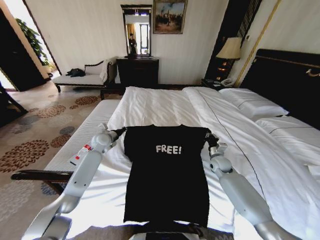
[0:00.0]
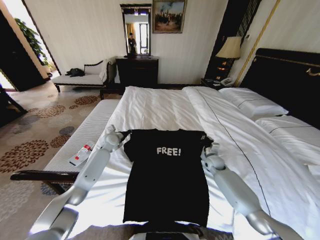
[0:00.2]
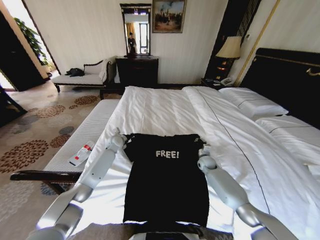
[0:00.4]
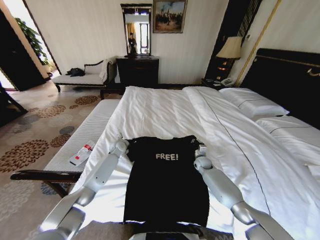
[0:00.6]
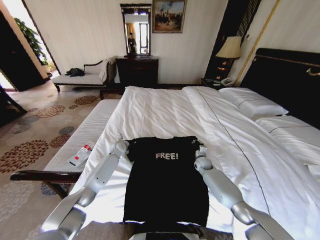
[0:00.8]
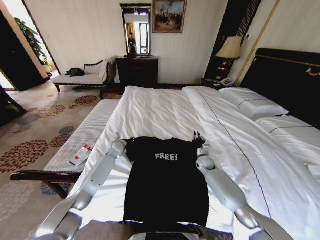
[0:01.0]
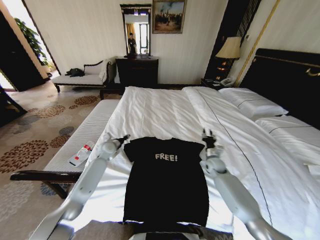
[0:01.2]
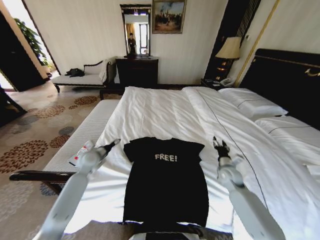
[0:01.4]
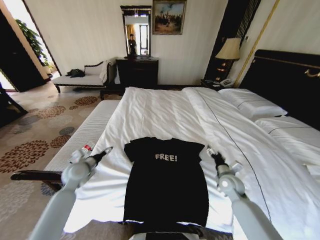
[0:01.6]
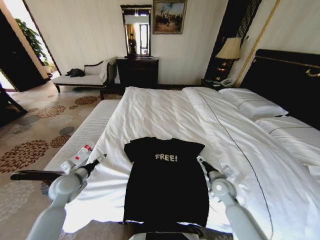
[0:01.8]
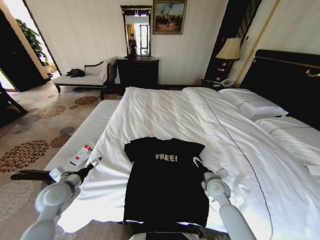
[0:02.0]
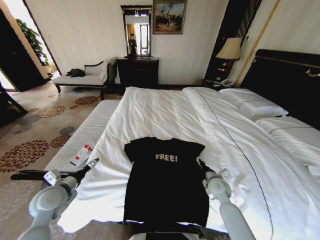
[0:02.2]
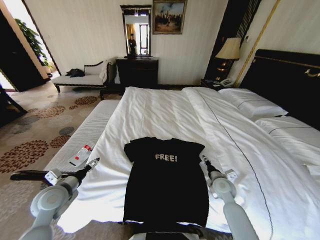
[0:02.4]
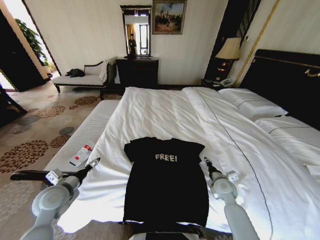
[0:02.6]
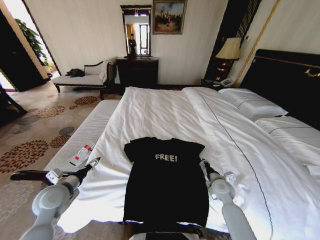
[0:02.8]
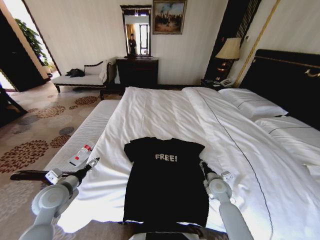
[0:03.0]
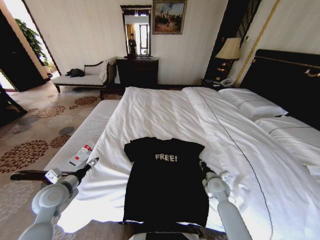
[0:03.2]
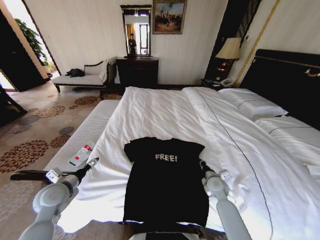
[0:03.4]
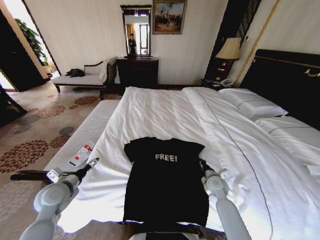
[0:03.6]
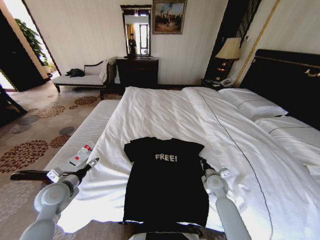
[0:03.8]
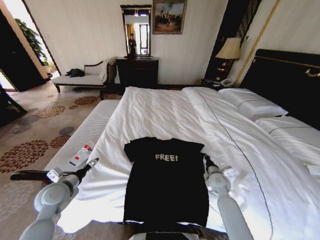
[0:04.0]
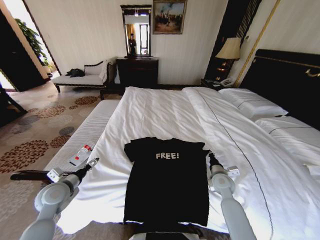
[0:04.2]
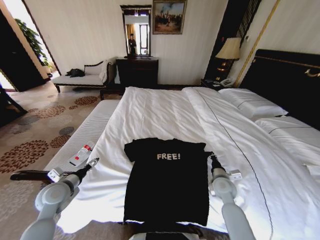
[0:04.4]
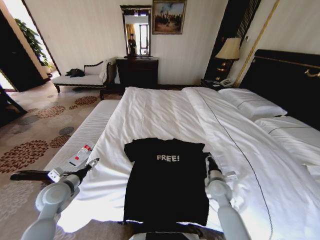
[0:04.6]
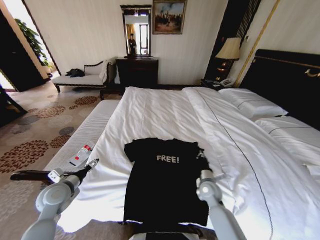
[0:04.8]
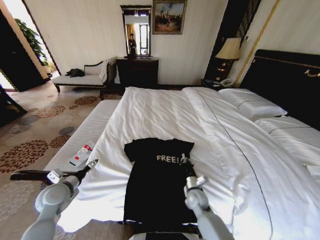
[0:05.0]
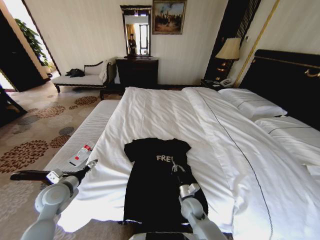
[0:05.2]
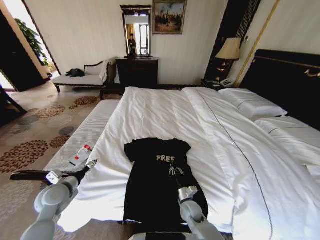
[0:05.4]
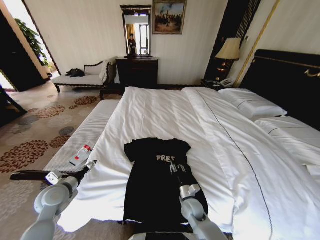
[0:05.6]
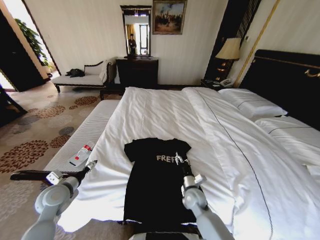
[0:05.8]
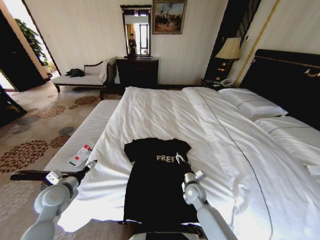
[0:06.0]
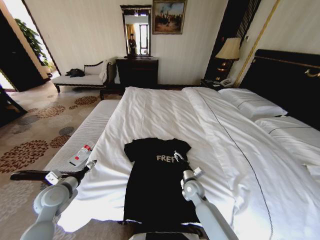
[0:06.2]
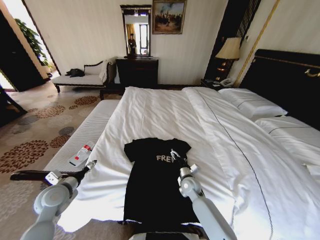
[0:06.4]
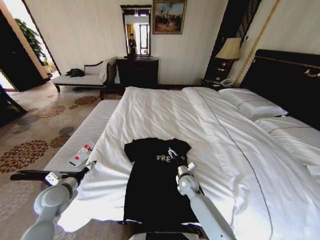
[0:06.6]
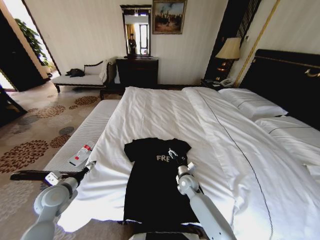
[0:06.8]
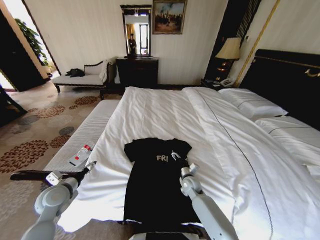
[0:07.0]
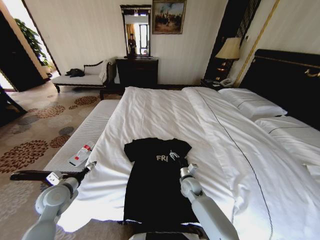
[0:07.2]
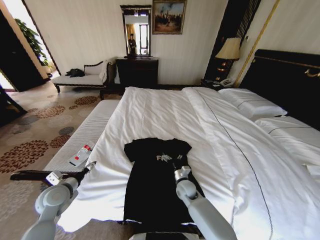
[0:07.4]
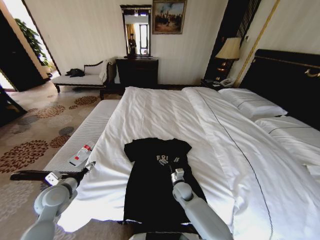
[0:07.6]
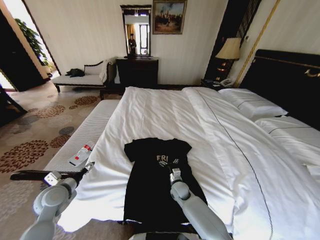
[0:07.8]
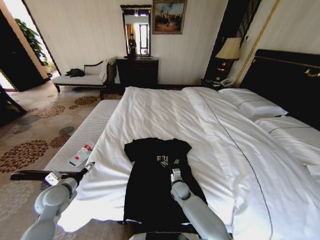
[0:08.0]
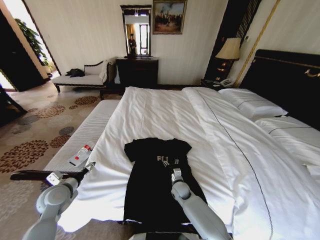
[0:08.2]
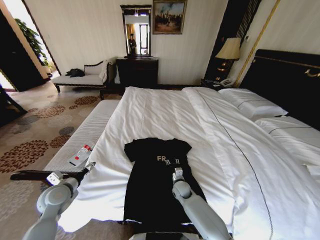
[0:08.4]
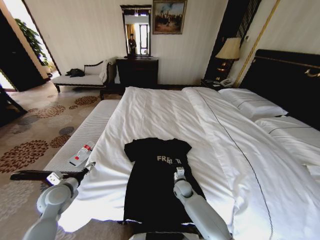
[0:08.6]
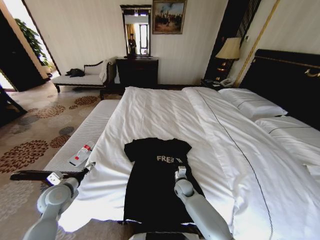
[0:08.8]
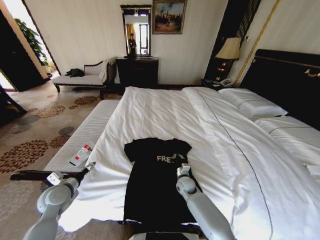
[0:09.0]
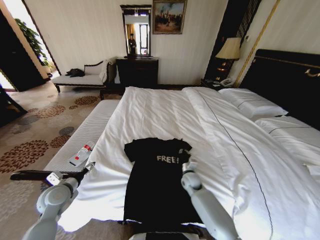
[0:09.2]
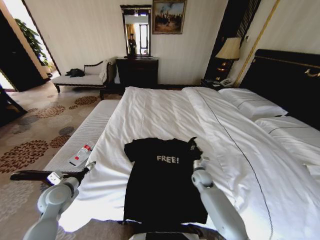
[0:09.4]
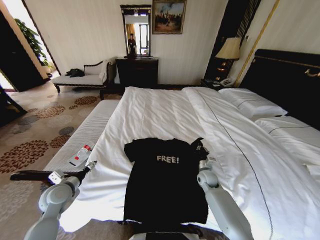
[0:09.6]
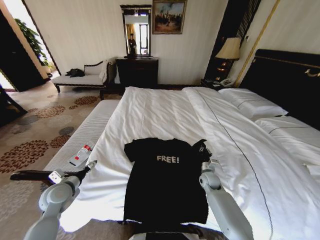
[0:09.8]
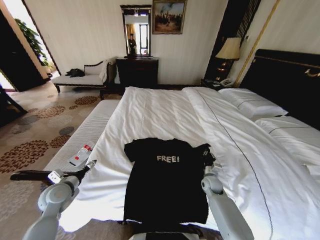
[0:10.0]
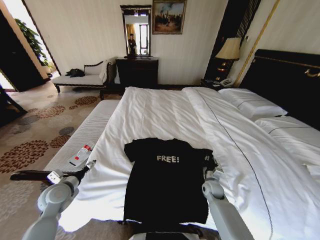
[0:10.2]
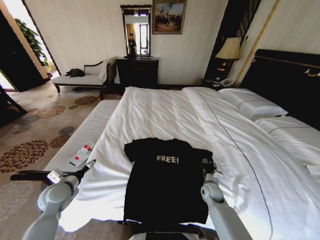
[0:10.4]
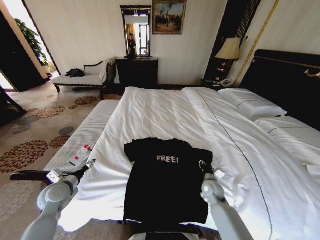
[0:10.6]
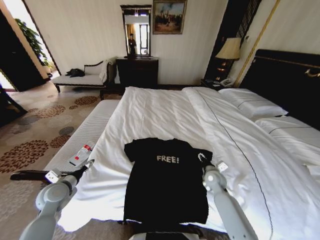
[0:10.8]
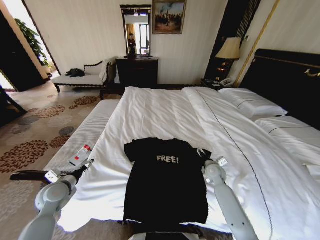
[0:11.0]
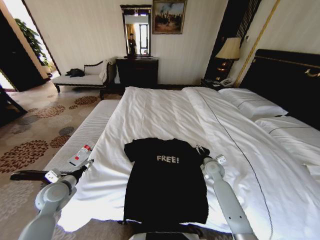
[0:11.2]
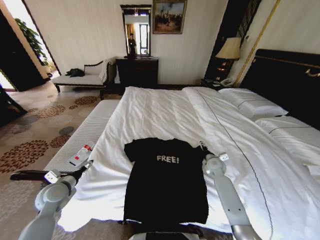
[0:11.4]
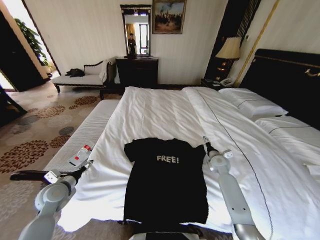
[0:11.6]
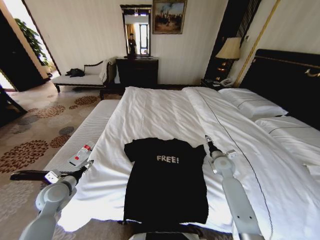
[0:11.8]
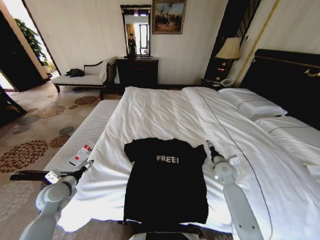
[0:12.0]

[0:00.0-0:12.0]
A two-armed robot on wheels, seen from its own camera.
Task of the whole recording: Fold the clothes on the bed.
0:00.0 to 0:01.6: The left gripper goes roughly 20 cm backward and to the left, and opens; the right gripper goes some 10 cm backward, and opens its fingers.
0:01.6 to 0:03.0: The left gripper travels backward by roughly 10 cm, while the right gripper changes place by about 5 cm, and closes up.
0:03.0 to 0:04.4: There are only small adjustments of the grippers.
0:04.4 to 0:06.0: The right gripper is displaced to the left and downward by roughly 15 cm, and opens.
0:06.0 to 0:07.6: The right gripper travels to the left by approximately 5 cm.
0:07.6 to 0:09.0: The right gripper closes.
0:09.0 to 0:10.4: The right gripper travels to the right by approximately 10 cm.
0:10.4 to 0:12.0: The right gripper shifts about 15 cm upward, to the right and forward, and opens its fingers.

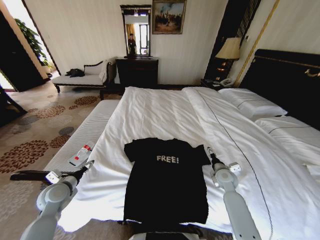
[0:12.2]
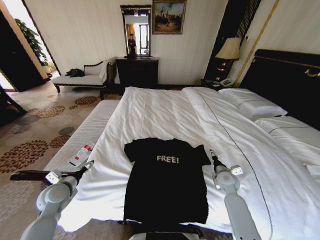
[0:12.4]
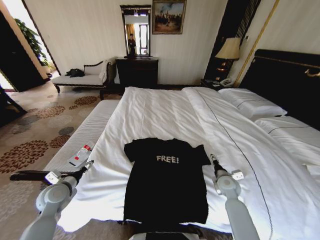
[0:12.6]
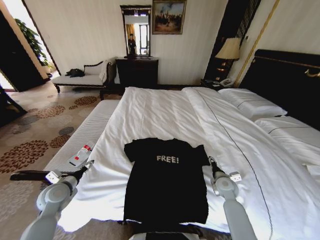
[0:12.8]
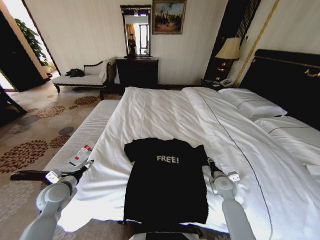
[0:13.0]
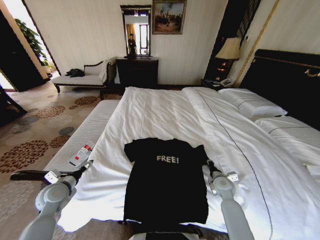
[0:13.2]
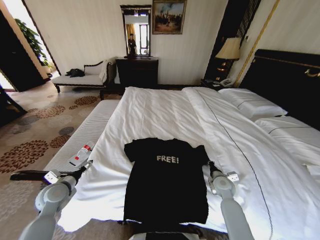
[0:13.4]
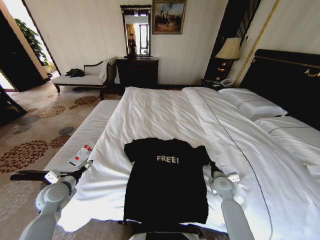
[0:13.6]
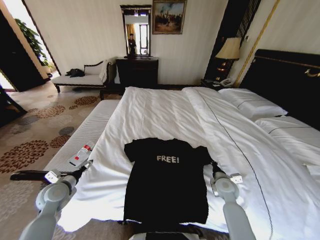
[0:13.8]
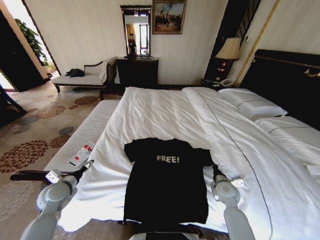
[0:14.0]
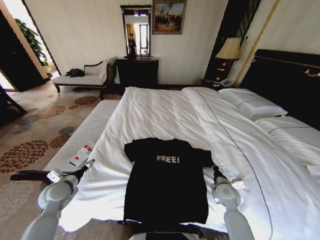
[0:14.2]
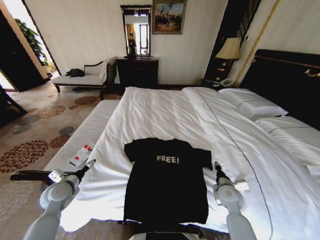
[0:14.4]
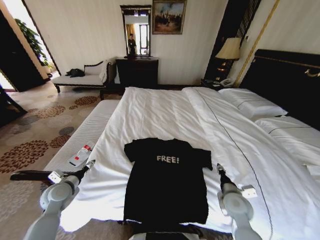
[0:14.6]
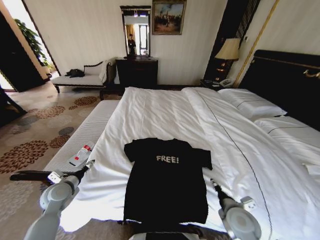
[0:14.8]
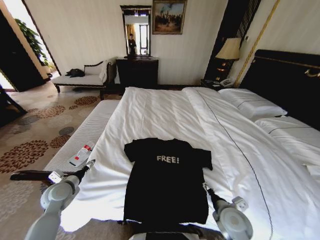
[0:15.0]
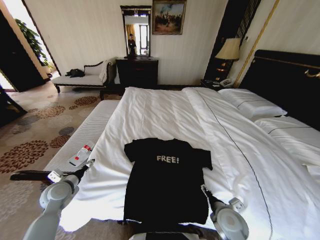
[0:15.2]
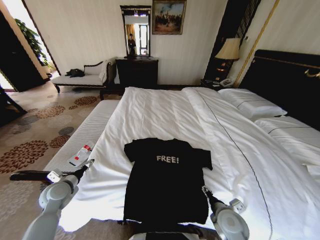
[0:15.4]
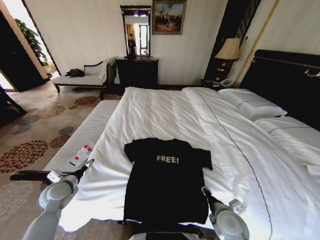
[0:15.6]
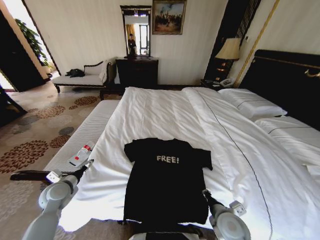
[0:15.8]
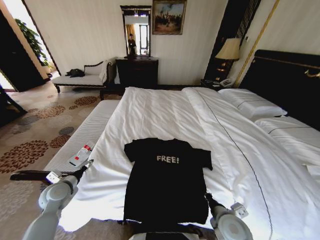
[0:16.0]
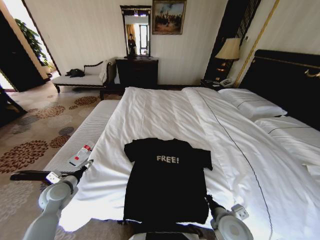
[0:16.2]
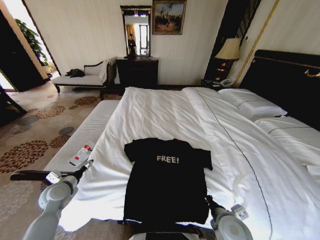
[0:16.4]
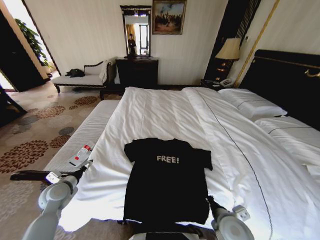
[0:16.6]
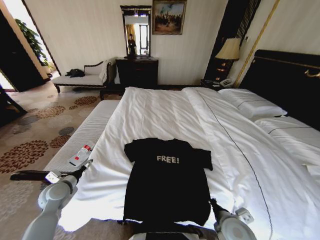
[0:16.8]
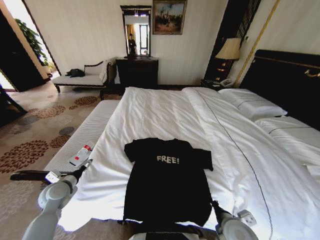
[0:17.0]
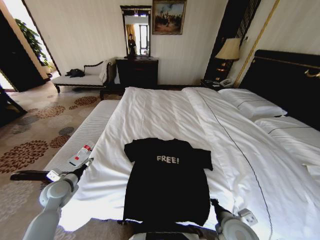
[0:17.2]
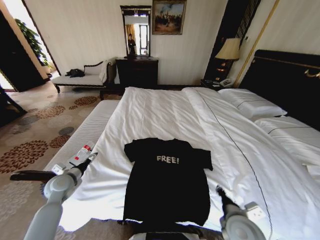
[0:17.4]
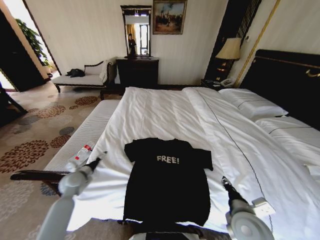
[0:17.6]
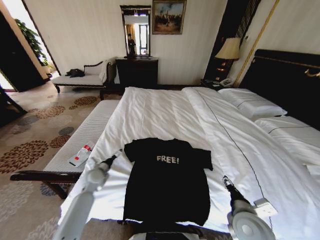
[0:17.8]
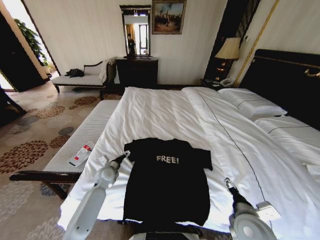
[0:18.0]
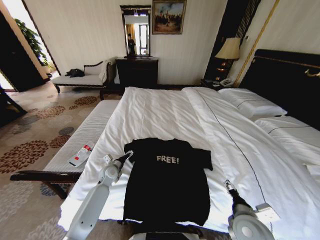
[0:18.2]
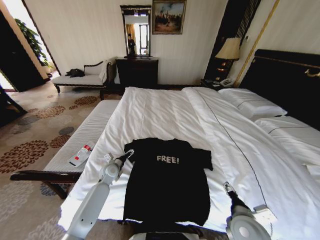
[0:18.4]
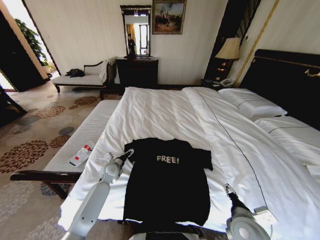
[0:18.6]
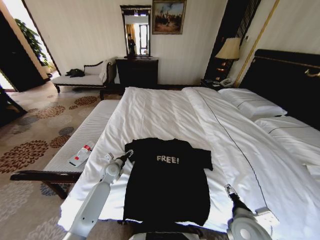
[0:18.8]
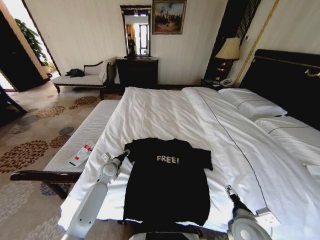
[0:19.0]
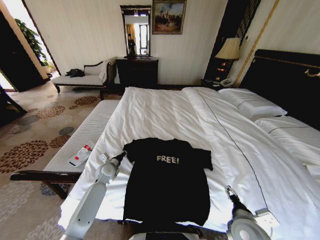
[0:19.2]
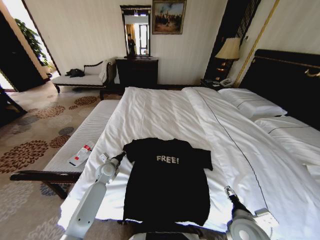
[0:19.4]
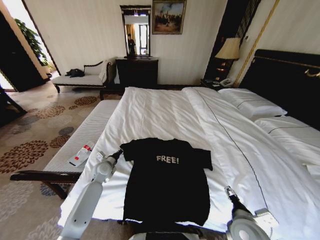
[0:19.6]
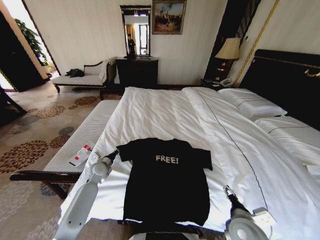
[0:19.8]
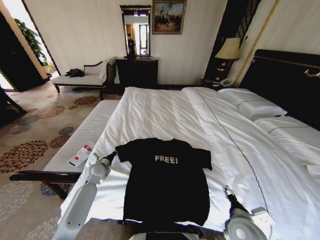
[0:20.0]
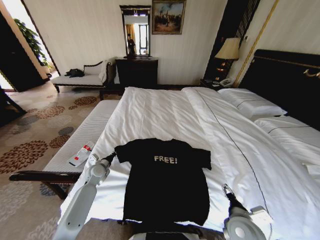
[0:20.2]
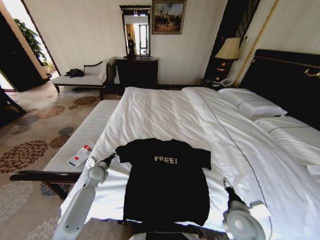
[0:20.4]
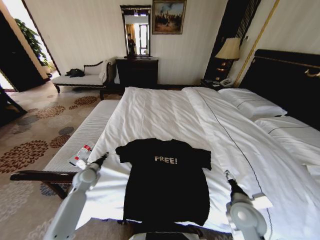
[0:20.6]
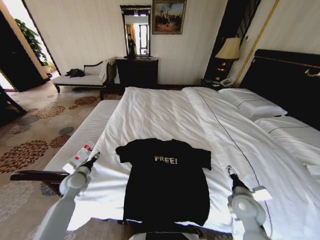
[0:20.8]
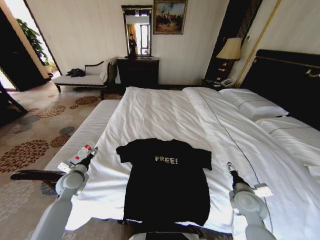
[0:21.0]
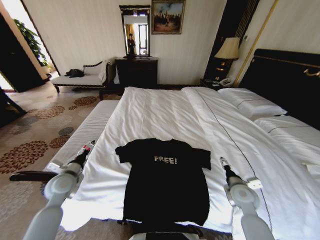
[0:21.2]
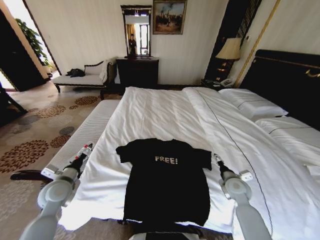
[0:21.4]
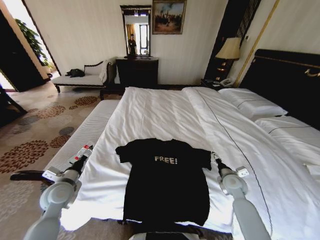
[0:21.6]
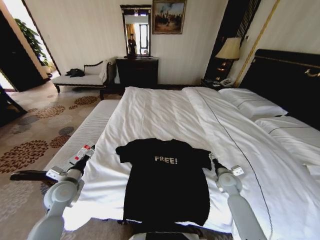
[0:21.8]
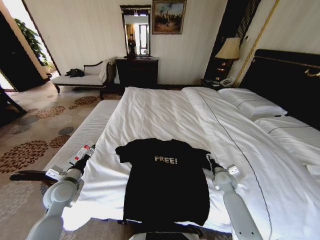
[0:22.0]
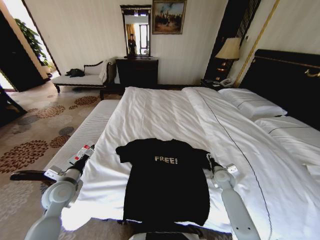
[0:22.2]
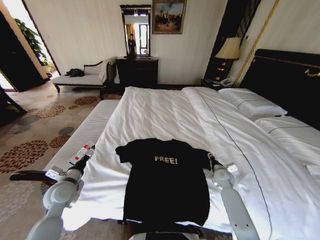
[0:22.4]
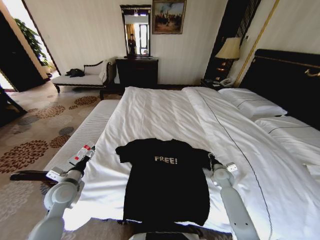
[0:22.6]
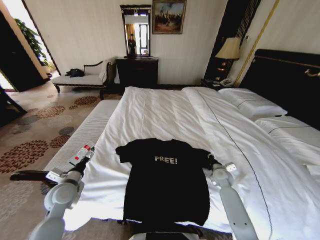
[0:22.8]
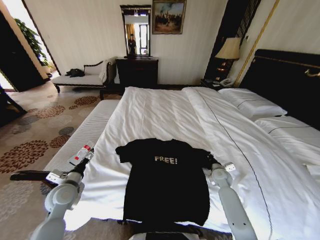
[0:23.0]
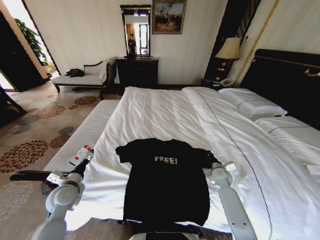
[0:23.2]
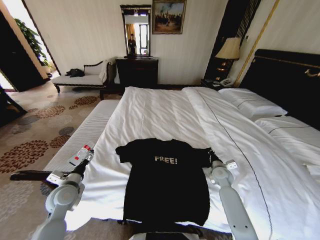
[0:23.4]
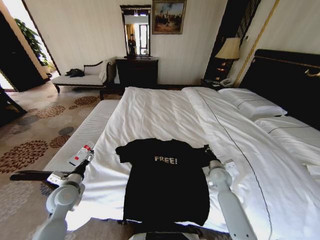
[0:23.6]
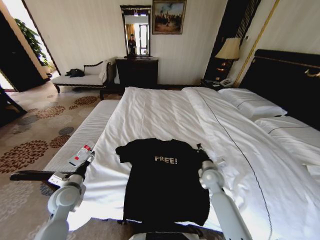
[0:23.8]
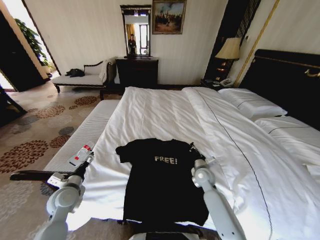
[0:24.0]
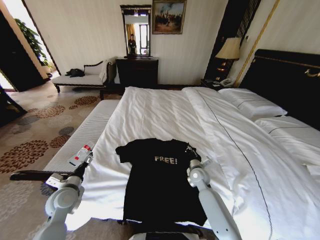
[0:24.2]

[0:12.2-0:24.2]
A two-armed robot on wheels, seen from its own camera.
Task of the whole recording: Fold the clothes on the bed.
0:12.2 to 0:13.8: The right gripper closes its fingers.
0:13.8 to 0:15.2: The right gripper moves backward and to the left, roughly 15 cm, and opens its fingers.
0:15.2 to 0:16.6: The right gripper closes.
0:16.6 to 0:18.2: The left gripper shifts roughly 20 cm to the right, forward and downward, while the right gripper changes place by roughly 5 cm, and opens up.
0:18.2 to 0:19.8: The left gripper moves to the left, roughly 5 cm, and closes up.
0:19.8 to 0:21.2: The right gripper goes about 15 cm forward and to the right, while the left gripper travels backward, upward and to the left by about 15 cm, and opens.
0:21.2 to 0:22.6: The right gripper is displaced forward and downward by some 15 cm, and closes.
0:22.6 to 0:24.2: The right gripper goes approximately 15 cm to the left, and closes up.
